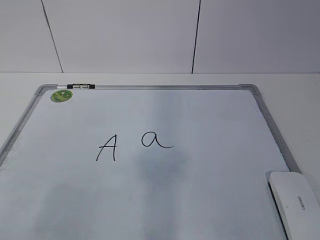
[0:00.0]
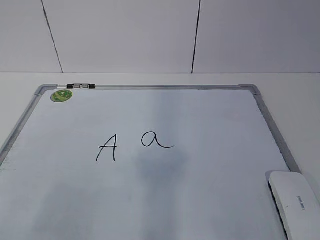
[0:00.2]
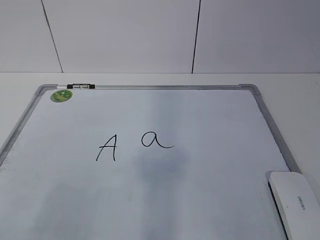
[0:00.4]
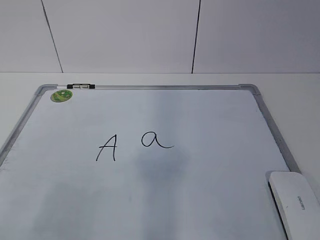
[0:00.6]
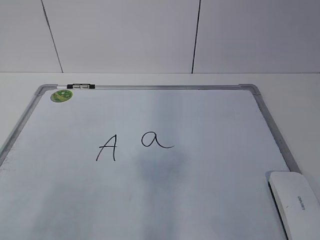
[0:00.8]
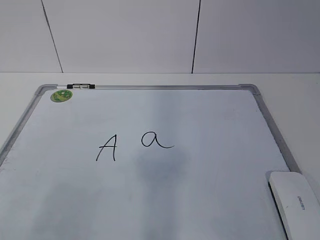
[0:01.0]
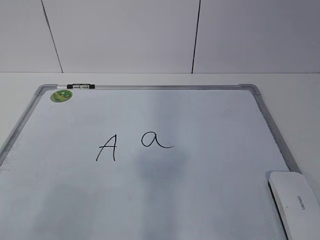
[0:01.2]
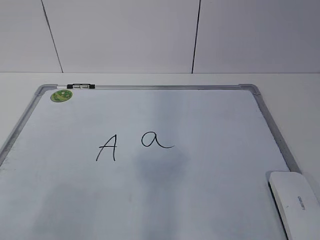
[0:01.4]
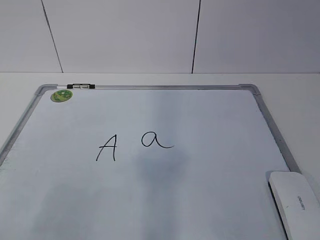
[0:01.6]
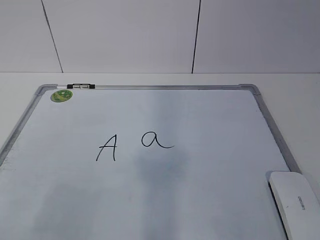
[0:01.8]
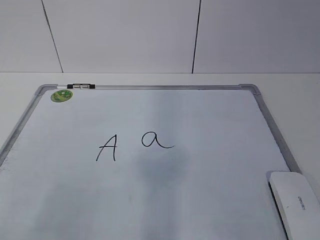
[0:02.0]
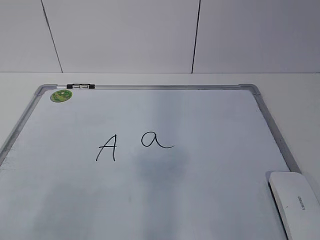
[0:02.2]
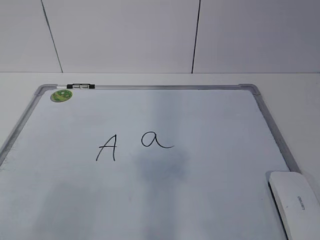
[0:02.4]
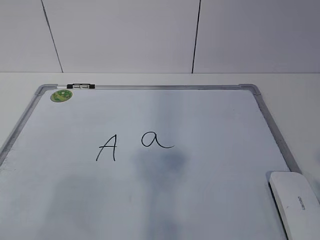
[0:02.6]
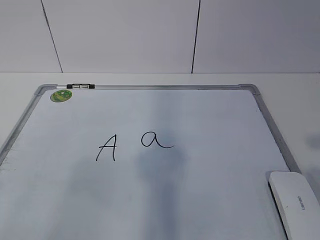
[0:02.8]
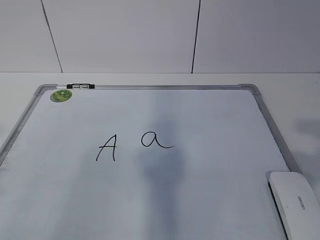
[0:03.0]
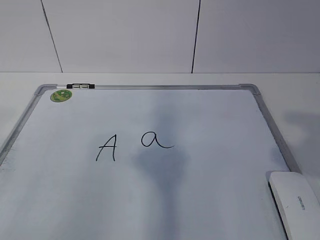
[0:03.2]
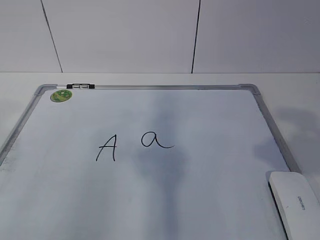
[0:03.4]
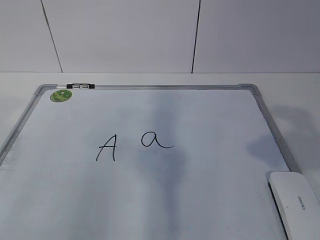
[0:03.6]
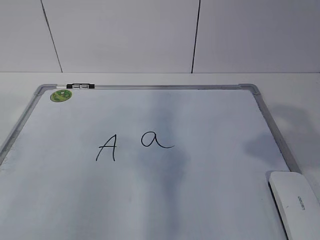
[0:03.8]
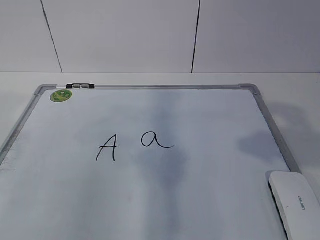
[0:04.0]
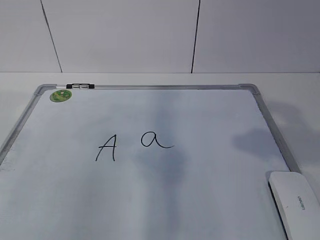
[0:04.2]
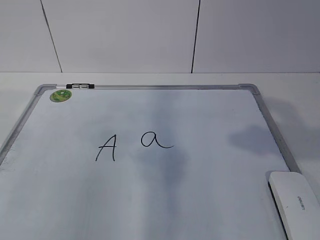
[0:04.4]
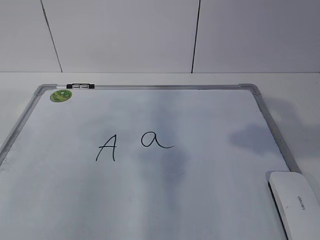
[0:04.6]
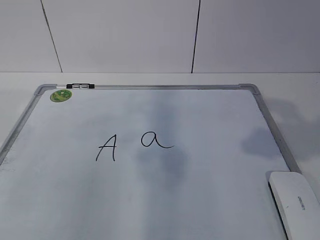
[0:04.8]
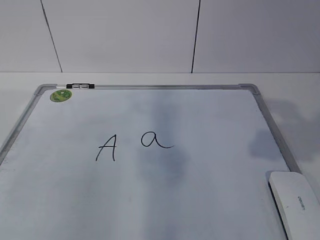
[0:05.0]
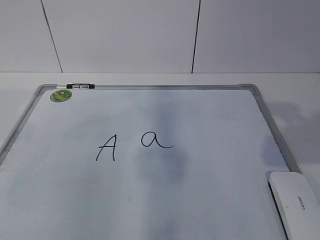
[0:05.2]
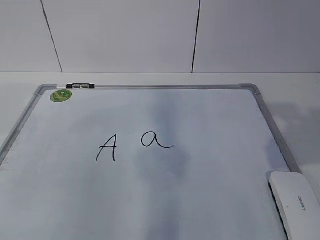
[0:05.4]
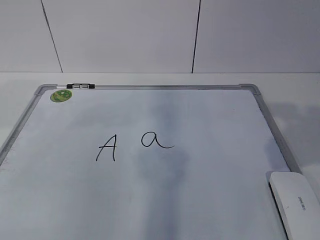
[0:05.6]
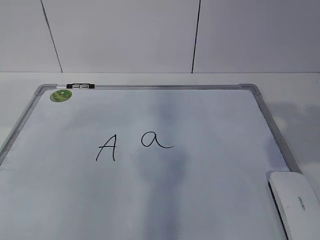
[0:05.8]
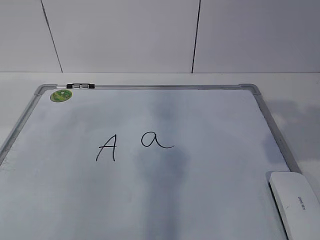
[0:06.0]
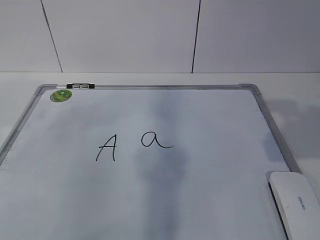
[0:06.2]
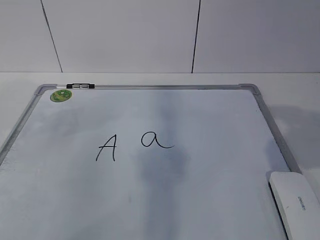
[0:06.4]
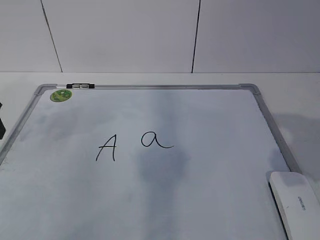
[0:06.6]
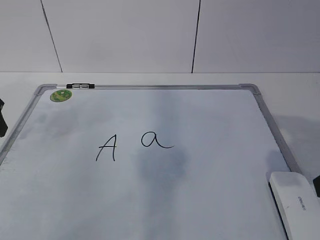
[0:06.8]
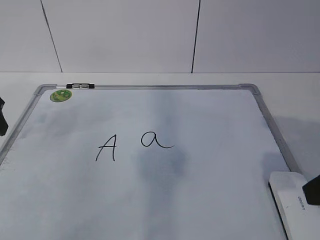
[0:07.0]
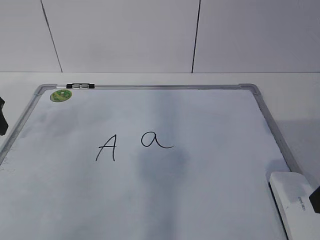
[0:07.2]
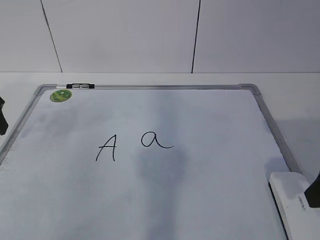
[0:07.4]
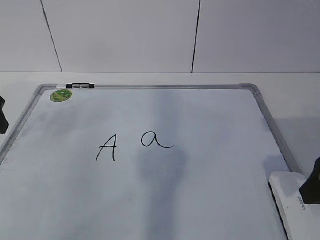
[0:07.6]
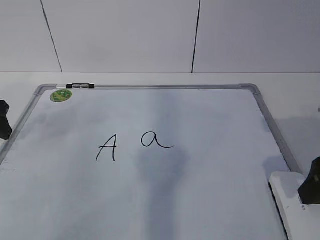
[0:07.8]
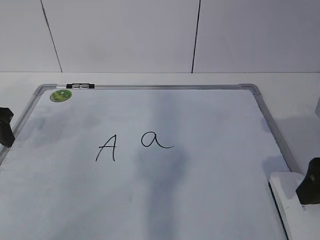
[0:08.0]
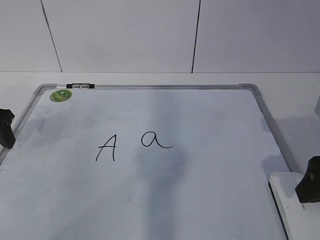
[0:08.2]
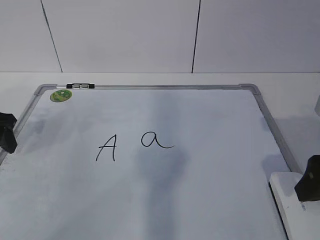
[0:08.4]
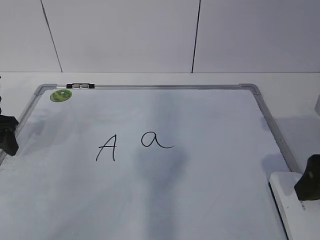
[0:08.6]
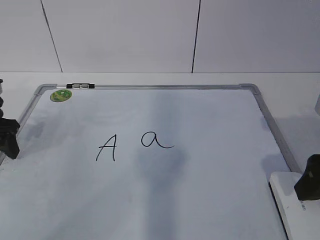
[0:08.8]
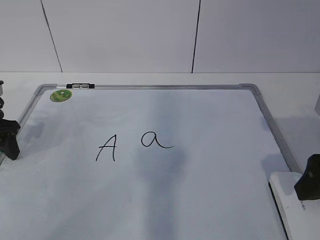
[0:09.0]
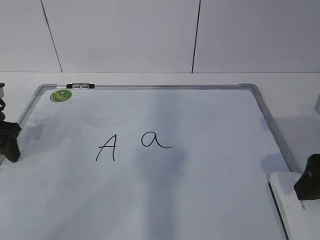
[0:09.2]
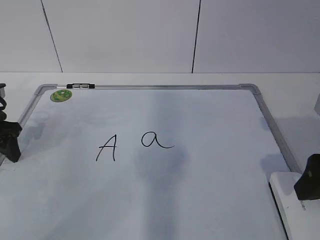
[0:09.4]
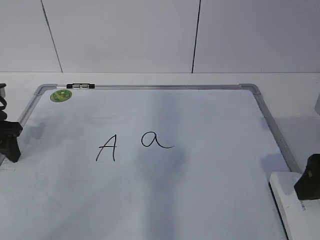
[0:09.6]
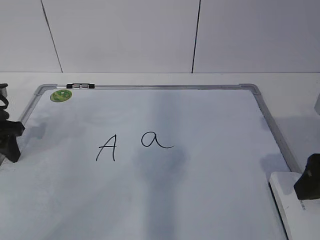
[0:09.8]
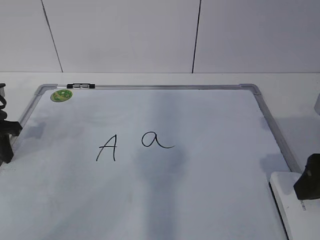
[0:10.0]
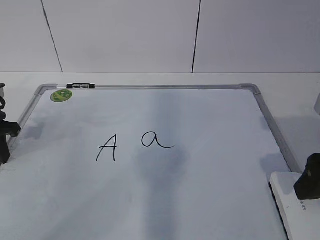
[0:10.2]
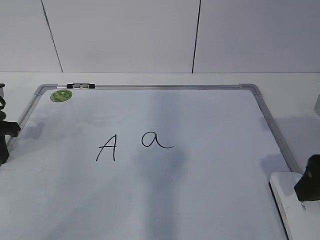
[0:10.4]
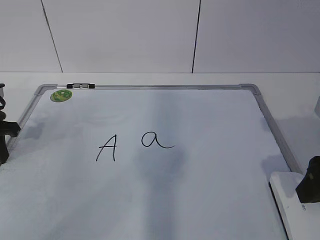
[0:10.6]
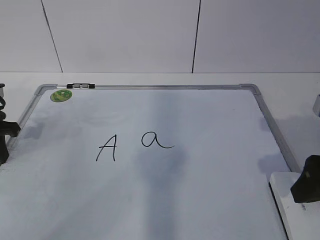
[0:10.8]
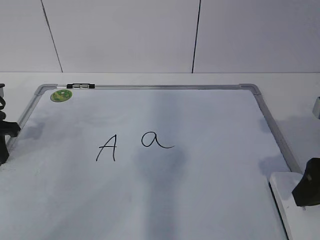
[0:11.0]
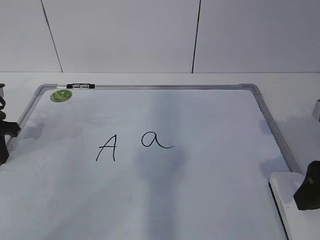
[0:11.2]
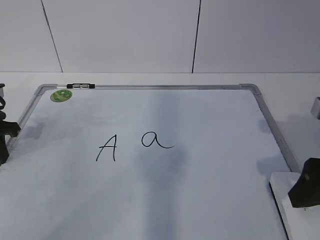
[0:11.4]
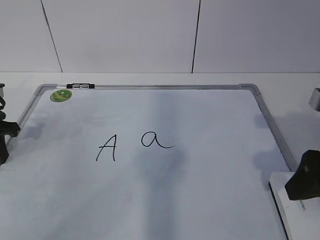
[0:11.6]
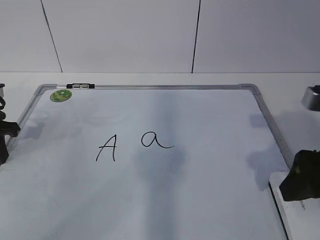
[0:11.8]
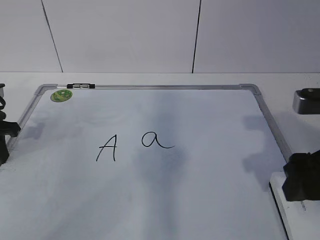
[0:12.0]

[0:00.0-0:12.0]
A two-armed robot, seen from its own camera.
Task of the whole recording: pick up the eraser on the blackboard and erase the letter "a".
0:01.6 to 0:03.0: The right gripper travels upward by roughly 10 cm.
0:03.0 to 0:04.4: The right gripper shifts by roughly 5 cm.
0:06.0 to 0:07.6: The right gripper moves downward, roughly 10 cm, and opens its fingers.
0:07.6 to 0:09.0: The left gripper travels downward by about 5 cm.
0:09.0 to 0:10.4: The left gripper closes.
0:10.4 to 0:12.0: The grippers stay close to where they were, moving slightly.

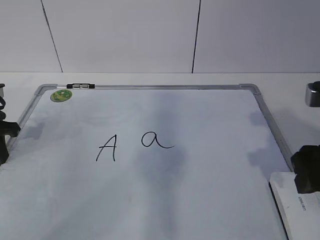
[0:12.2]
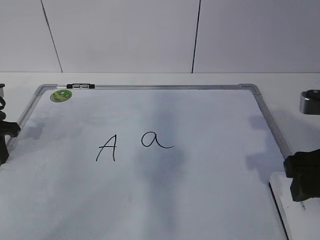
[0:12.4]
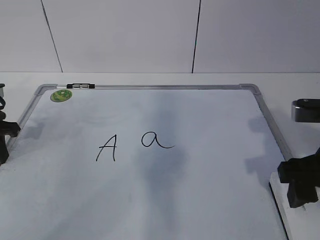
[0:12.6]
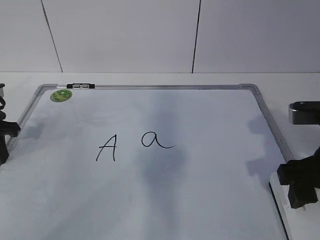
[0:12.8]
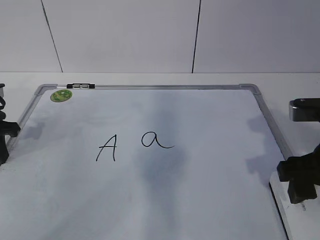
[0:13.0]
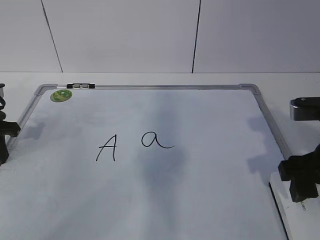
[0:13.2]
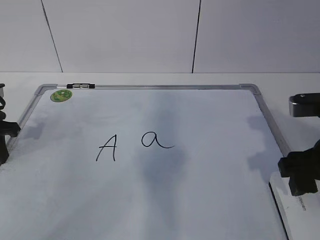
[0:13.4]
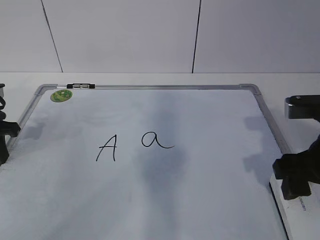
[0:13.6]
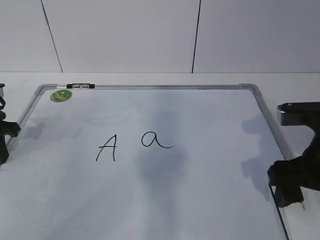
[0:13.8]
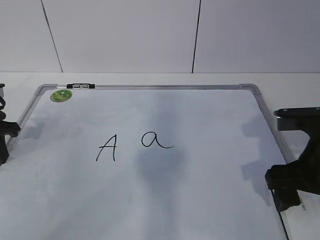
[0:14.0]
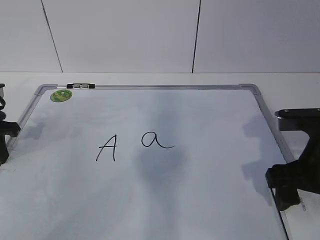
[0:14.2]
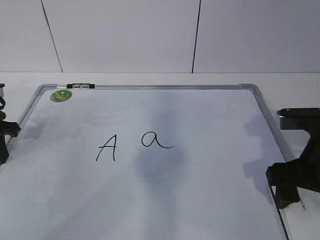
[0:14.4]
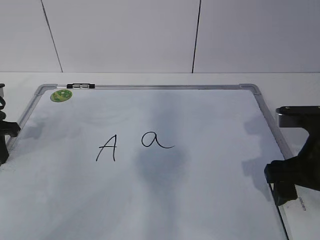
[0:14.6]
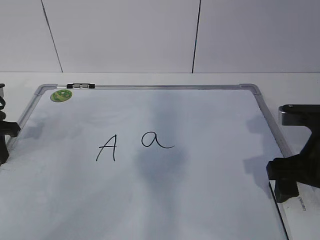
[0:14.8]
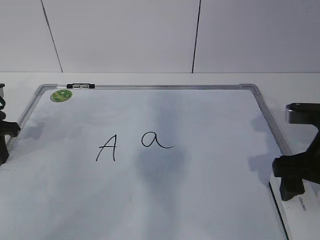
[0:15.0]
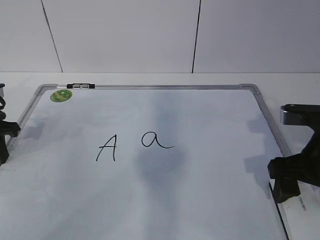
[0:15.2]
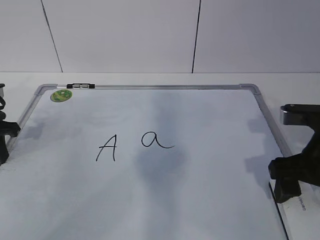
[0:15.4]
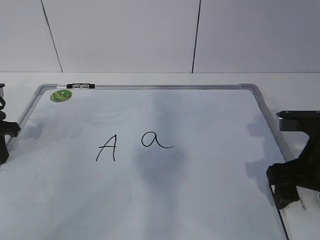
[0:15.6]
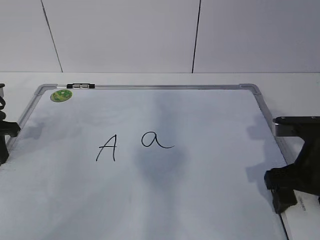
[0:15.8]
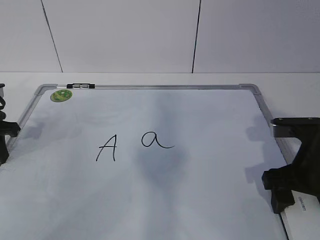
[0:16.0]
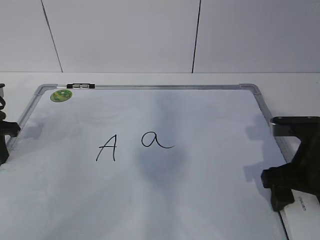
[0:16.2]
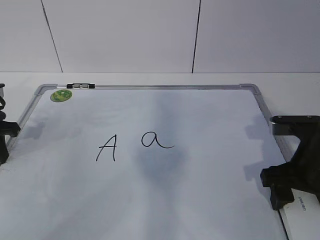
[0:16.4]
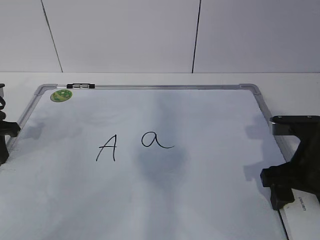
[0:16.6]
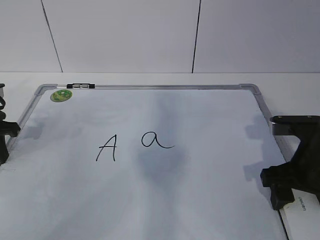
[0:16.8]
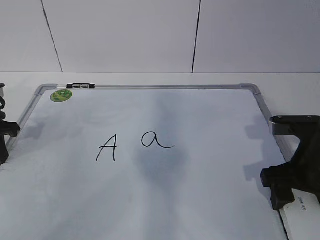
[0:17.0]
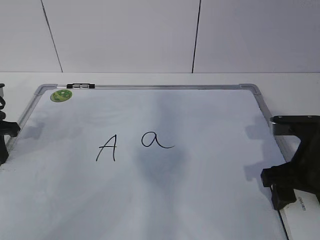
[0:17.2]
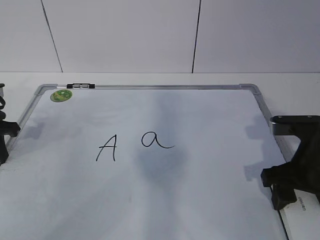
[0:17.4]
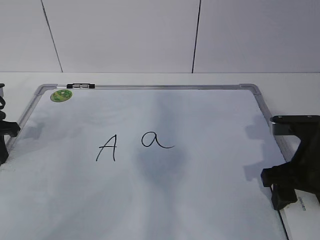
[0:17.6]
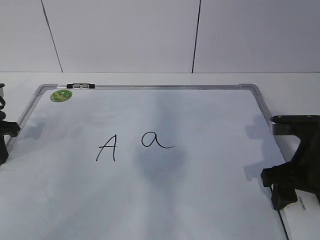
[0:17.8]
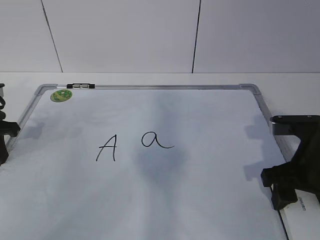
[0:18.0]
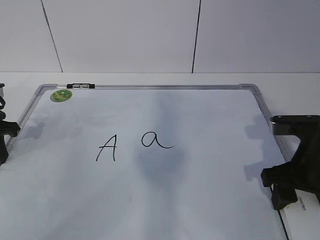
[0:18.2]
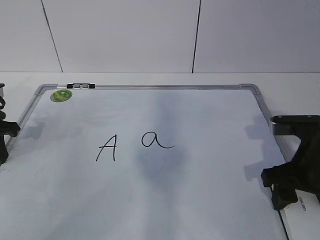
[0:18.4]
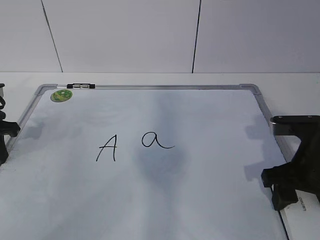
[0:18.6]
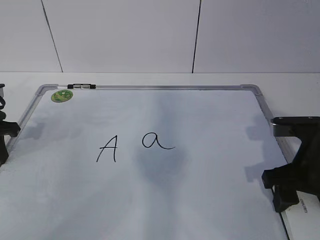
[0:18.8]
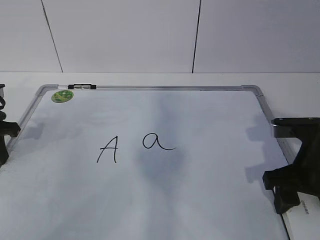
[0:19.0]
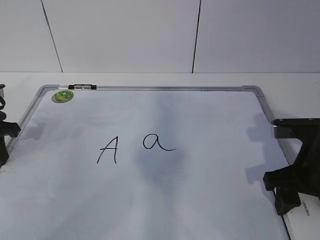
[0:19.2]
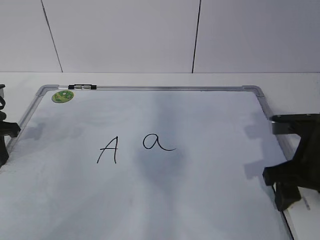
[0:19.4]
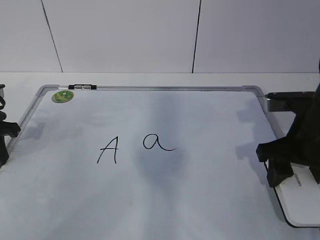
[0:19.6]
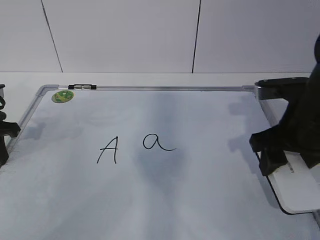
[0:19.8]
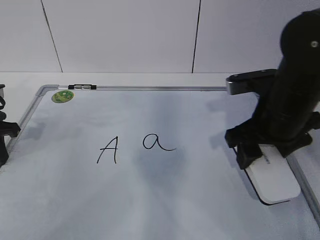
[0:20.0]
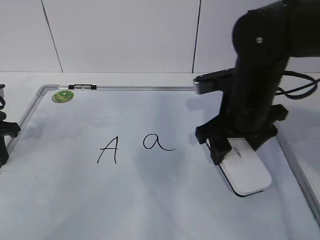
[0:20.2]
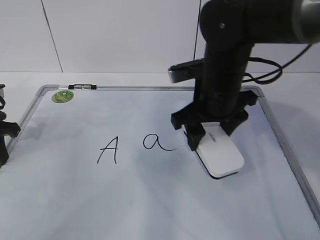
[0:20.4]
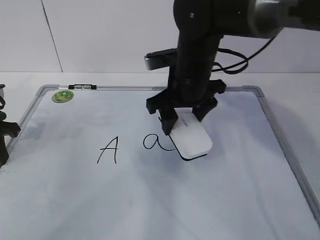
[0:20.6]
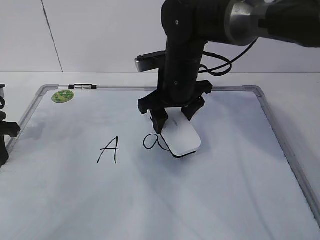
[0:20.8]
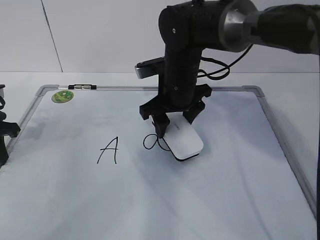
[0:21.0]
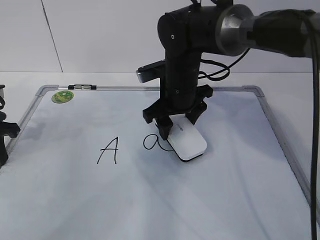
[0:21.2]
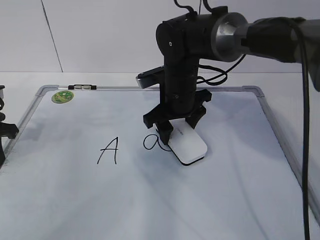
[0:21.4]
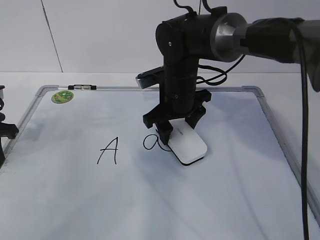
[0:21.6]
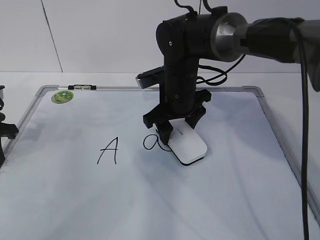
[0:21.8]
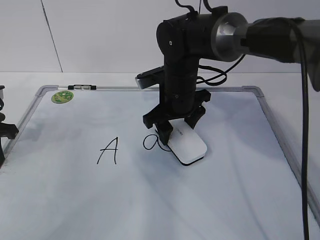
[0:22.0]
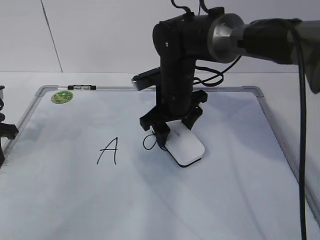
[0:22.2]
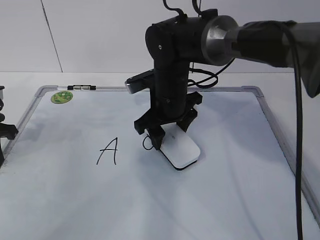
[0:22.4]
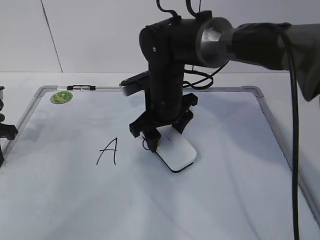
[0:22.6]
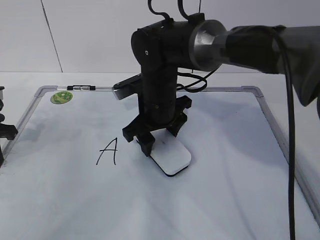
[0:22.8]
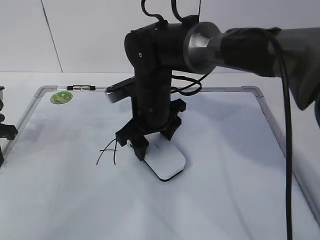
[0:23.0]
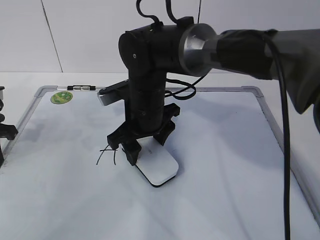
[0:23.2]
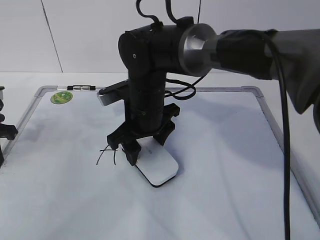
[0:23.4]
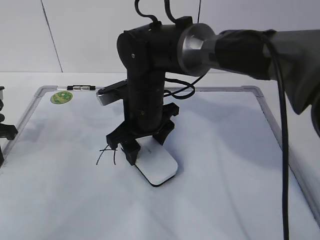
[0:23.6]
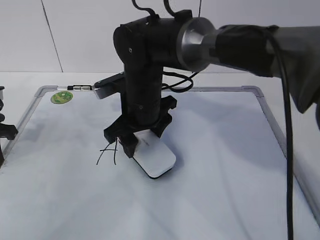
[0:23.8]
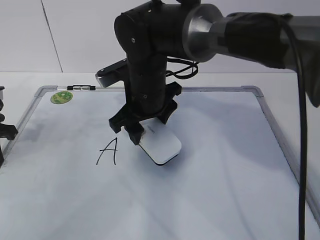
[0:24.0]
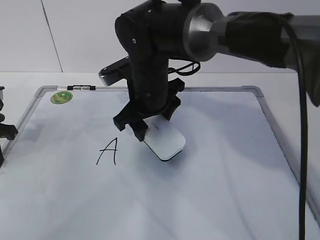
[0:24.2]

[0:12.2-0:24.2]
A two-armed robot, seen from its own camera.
Task of the whole recording: pick up the eraser on the blackboard and erase the letter "a".
Step, 0:12.2 to 0:15.8: Grab the eraser with your right hand.
Step, 0:16.0 to 0:19.6: Erase the letter a with your right hand.
Step, 0:19.8 to 0:23.0: Put down the eraser with your right hand.
0:12.2 to 0:13.8: The right gripper opens its fingers.
0:13.8 to 0:15.2: The grippers stay close to where they were, moving slightly.
0:15.2 to 0:16.6: The right gripper closes up.
0:18.2 to 0:19.8: The right gripper shifts by some 5 cm.
0:19.8 to 0:21.2: The right gripper goes about 20 cm to the left and forward.
0:21.2 to 0:22.6: The grippers make only small movements.
0:22.6 to 0:24.2: The grippers move only a little.
